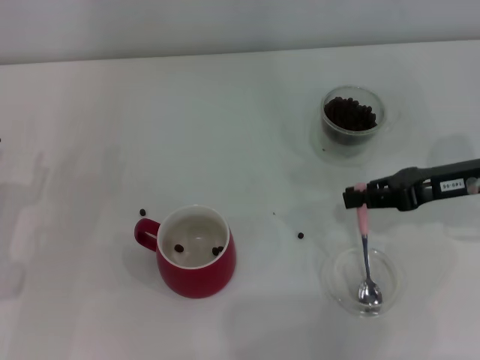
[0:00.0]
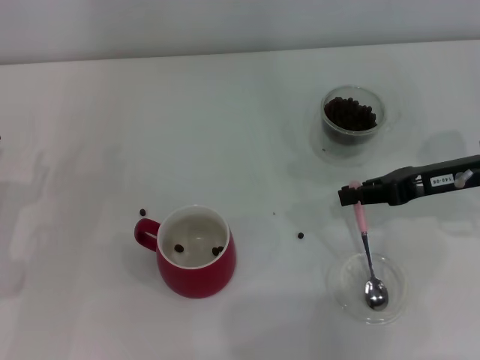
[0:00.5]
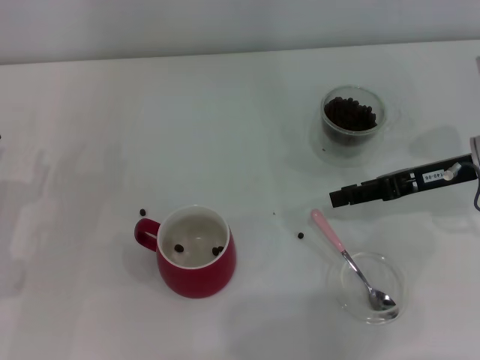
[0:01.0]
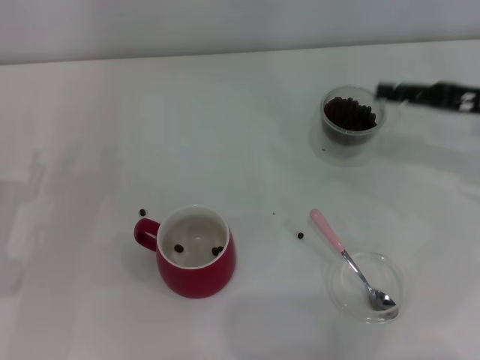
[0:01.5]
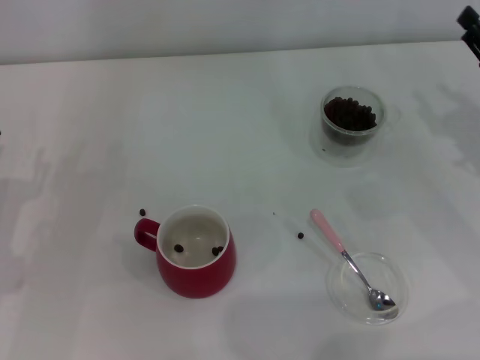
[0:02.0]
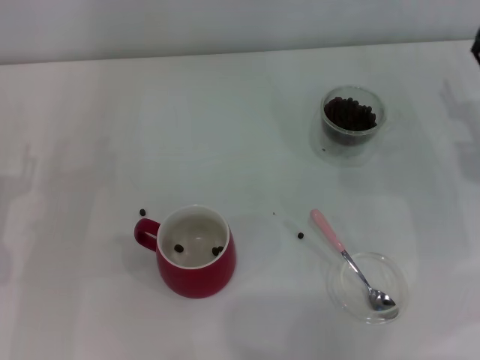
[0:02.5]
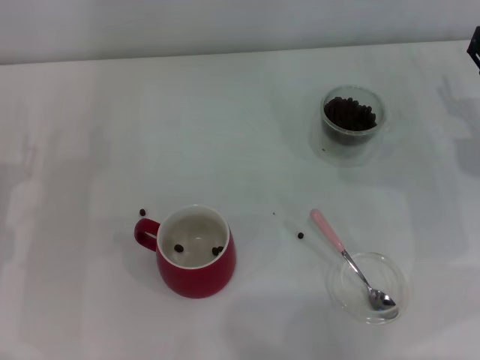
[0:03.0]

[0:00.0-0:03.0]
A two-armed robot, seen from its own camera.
Task of the whole recording: Use a pink spoon to take out the coffee beans from the glass and pour them into the red cup.
0:00.0 to 0:01.5: The right gripper changes place by about 5 cm, and opens its fingers.
0:01.5 to 0:03.0: The right gripper is displaced downward by roughly 10 cm, and opens.

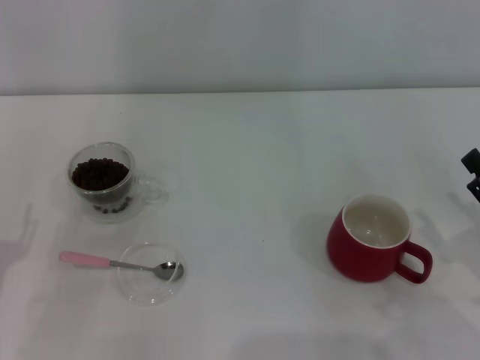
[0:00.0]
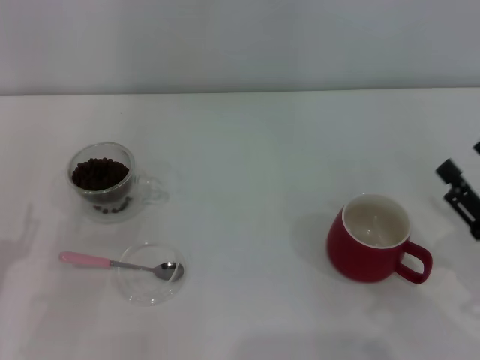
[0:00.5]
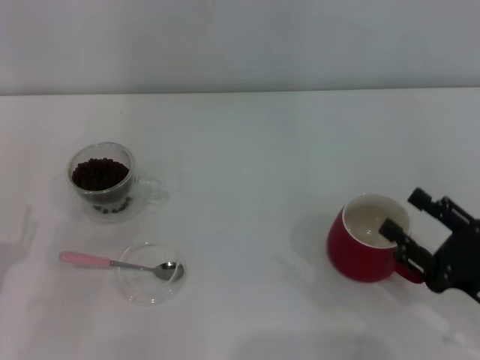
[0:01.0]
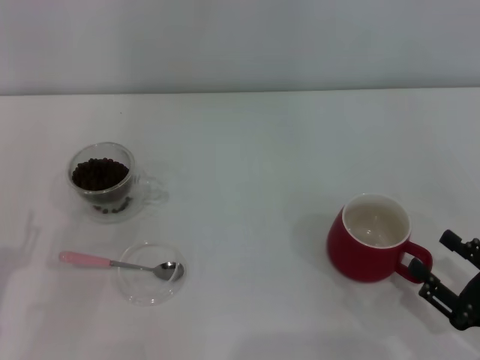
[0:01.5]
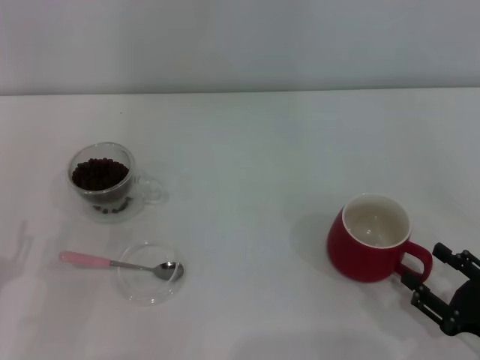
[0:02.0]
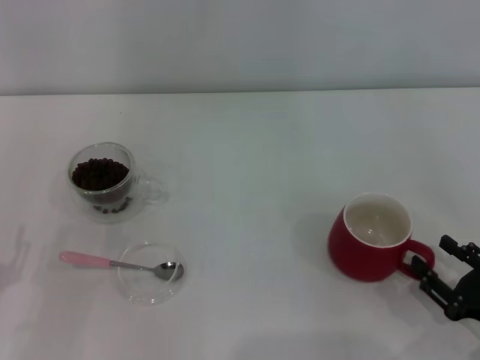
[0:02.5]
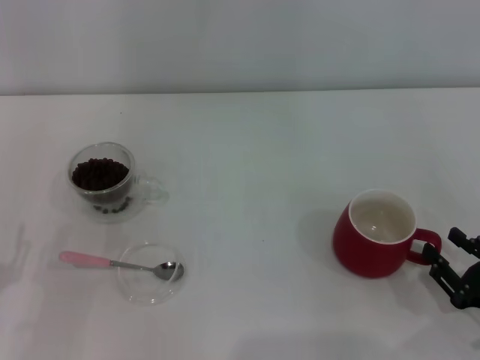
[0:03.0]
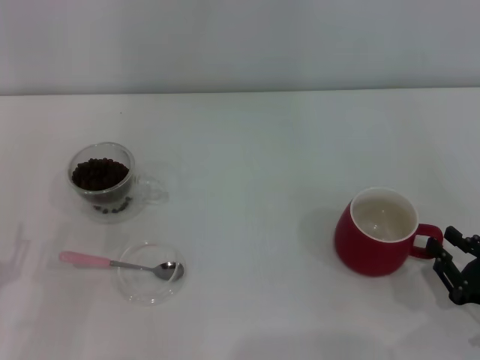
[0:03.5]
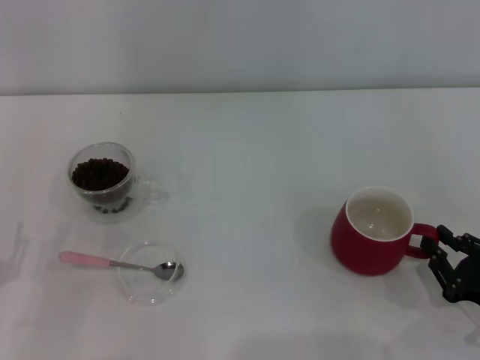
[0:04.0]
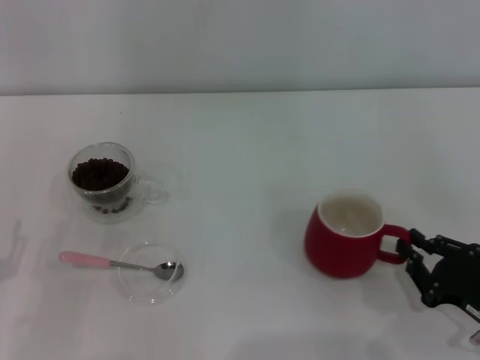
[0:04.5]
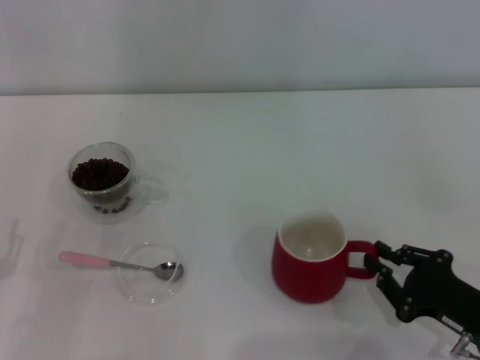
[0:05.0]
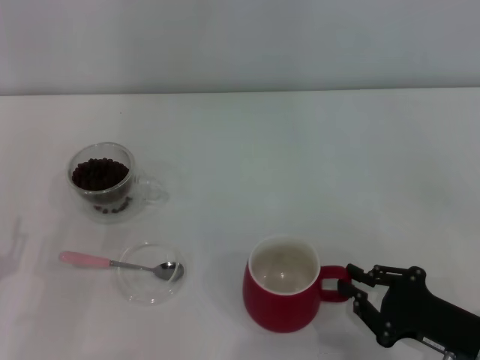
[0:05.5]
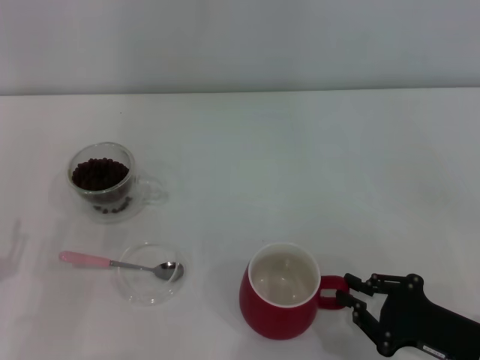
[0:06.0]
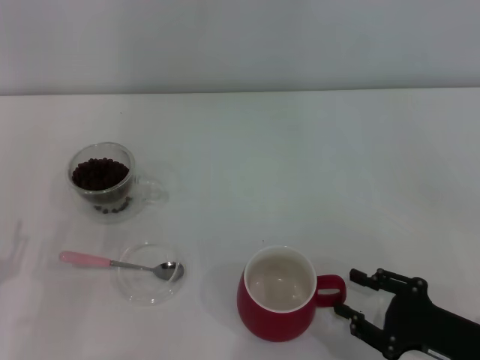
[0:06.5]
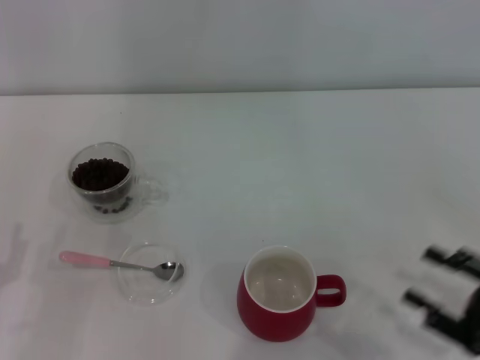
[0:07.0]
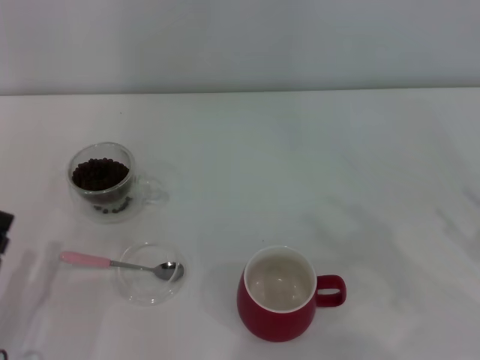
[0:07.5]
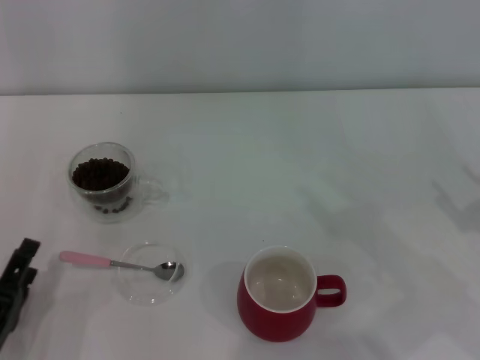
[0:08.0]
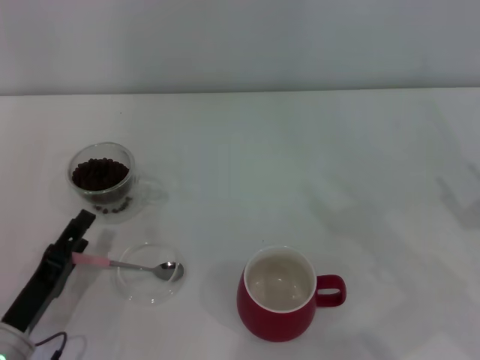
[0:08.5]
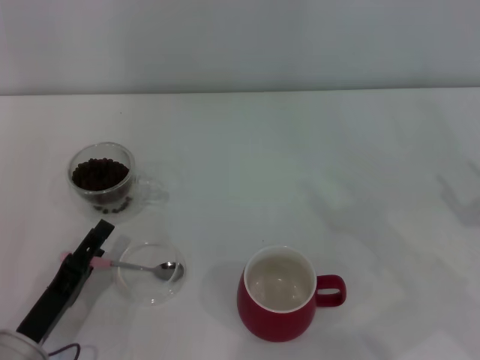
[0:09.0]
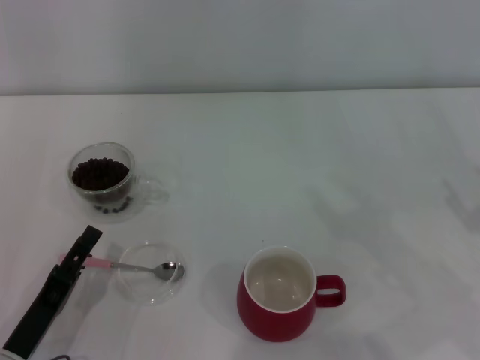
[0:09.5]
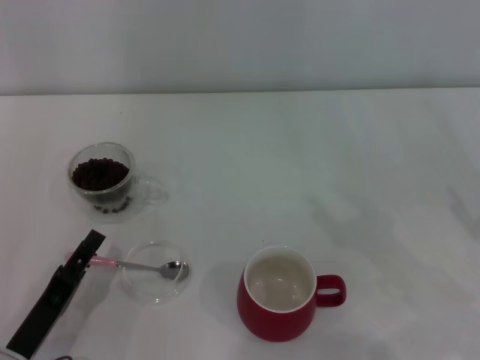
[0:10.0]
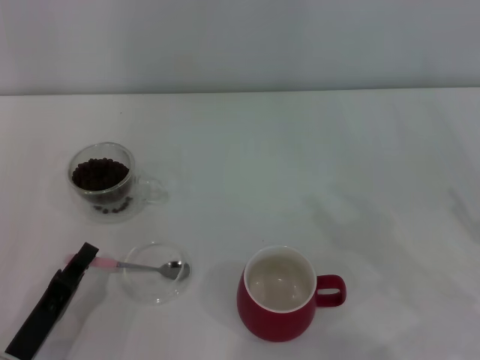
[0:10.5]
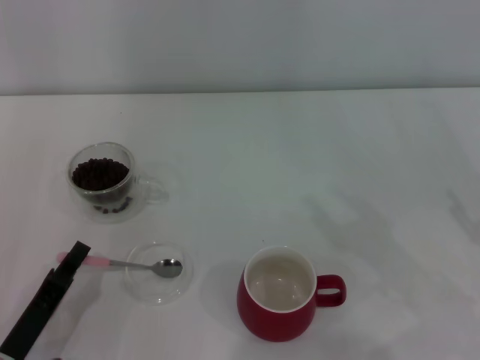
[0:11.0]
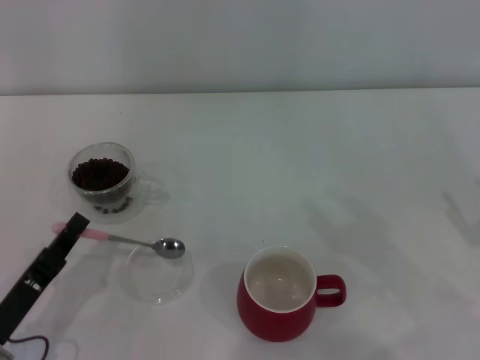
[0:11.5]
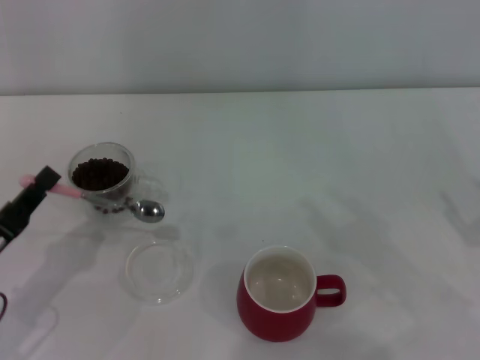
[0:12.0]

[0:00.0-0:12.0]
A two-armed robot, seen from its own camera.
Task of the whole recording: Use a pink spoon to take out the coffee beans from the glass and pour them into the red cup.
Step, 0:00.0 to 0:06.5: Move the cup to the center of view with the left gripper.
Step, 0:07.0 to 0:11.5: Pick up the spoon with the right gripper.
0:00.0 to 0:02.0: The right gripper heads downward, covering about 5 cm.
0:02.0 to 0:04.0: The right gripper closes its fingers.
0:06.0 to 0:08.0: The left gripper ends up some 5 cm from where it was; the right gripper shifts some 10 cm upward and to the right, and opens its fingers.
0:08.0 to 0:10.0: The grippers make only small movements.
0:10.0 to 0:12.0: The left gripper shifts approximately 10 cm upward and to the left, and closes.

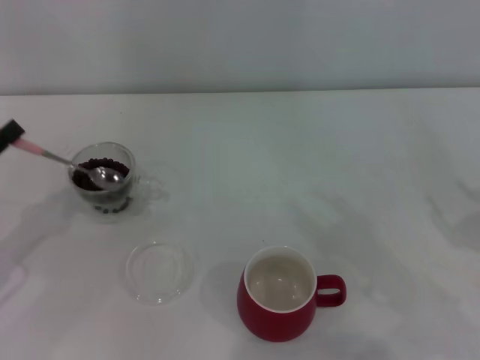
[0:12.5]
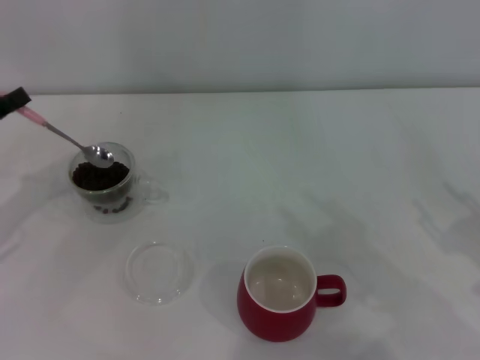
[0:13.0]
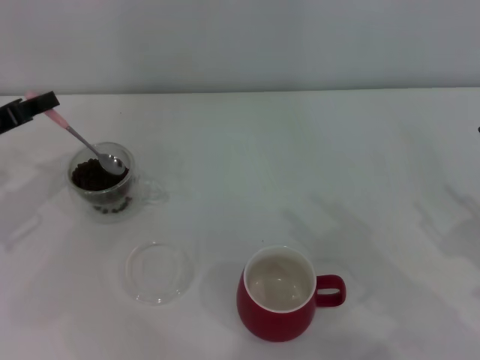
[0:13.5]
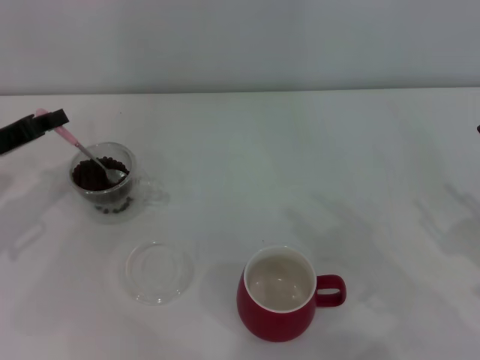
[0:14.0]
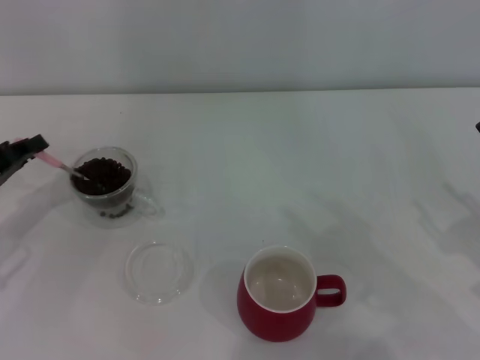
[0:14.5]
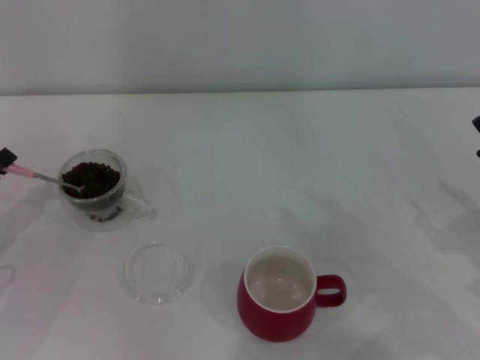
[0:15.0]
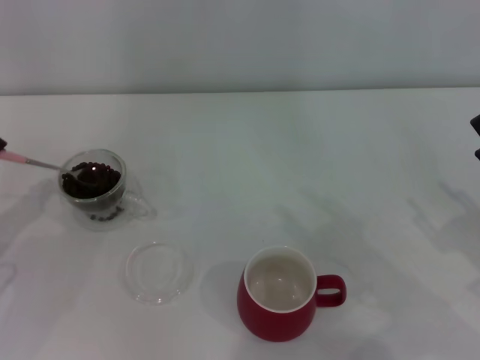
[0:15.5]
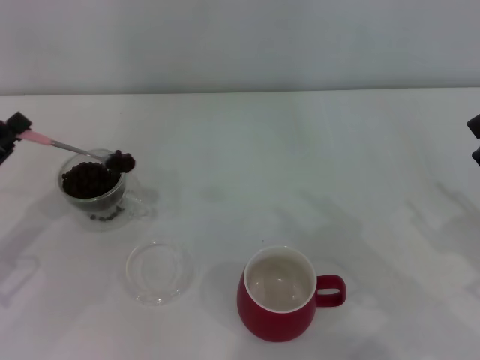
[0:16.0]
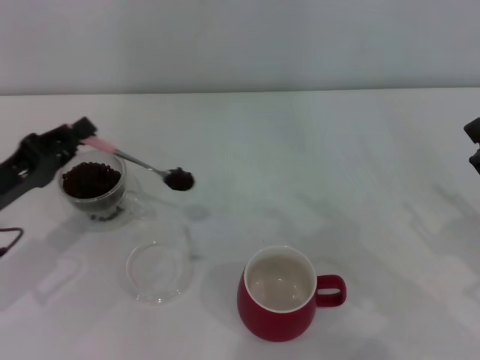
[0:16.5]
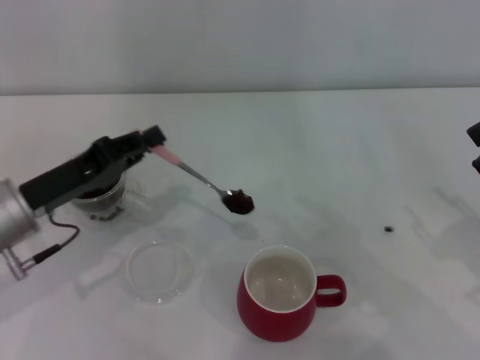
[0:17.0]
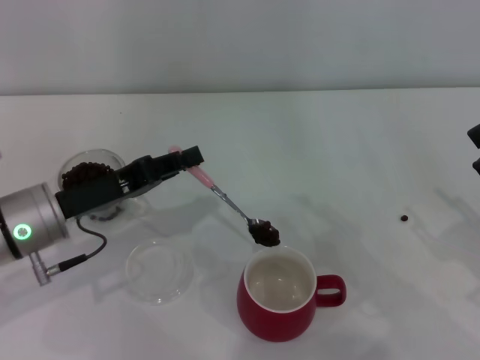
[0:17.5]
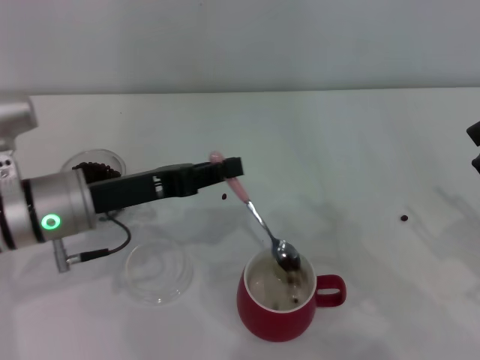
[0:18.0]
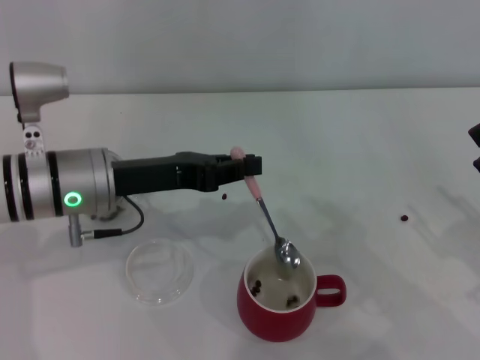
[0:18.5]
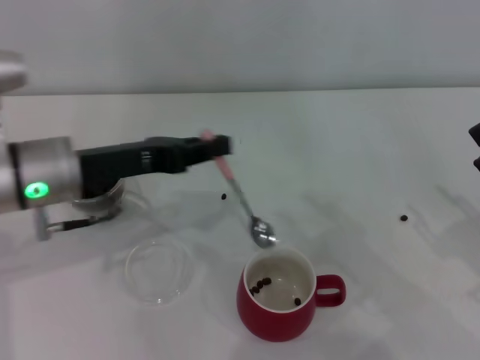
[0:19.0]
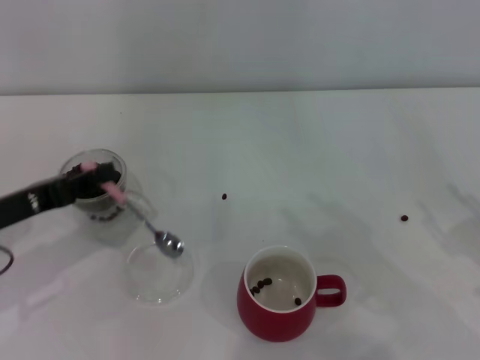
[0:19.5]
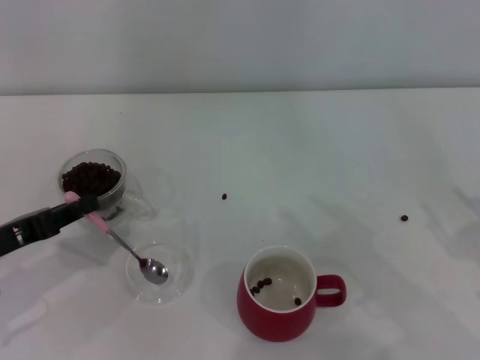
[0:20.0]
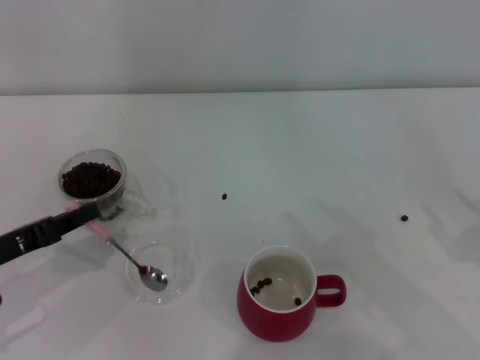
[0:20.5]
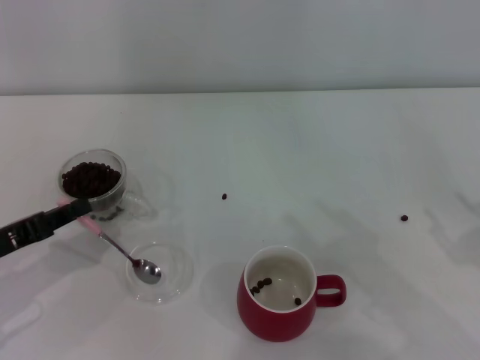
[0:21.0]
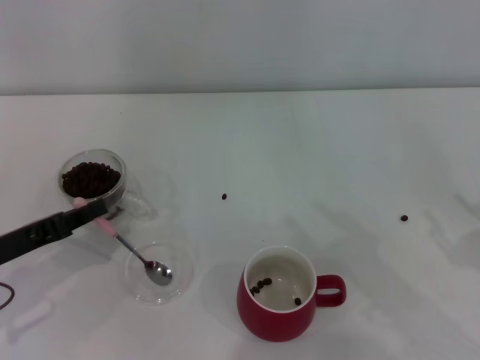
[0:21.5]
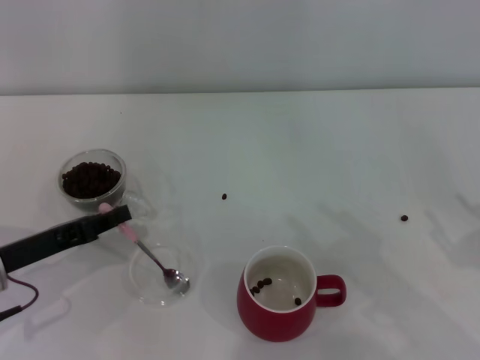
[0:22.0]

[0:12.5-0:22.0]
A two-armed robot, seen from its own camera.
Task of the whole recording: Use a pink spoon to take out the coffee beans from the glass and pour them into the red cup.
0:12.5 to 0:14.5: The left gripper travels forward by about 5 cm.
0:14.5 to 0:16.5: The left gripper shifts by some 5 cm.
0:16.5 to 0:18.0: The left gripper shifts some 10 cm to the right.
0:18.0 to 0:20.0: The left gripper is displaced to the left and backward by some 15 cm.
0:20.0 to 0:22.0: The grippers move only a little.

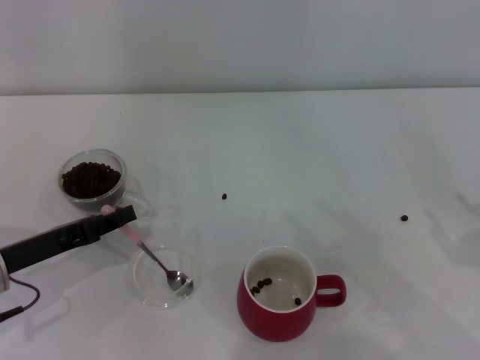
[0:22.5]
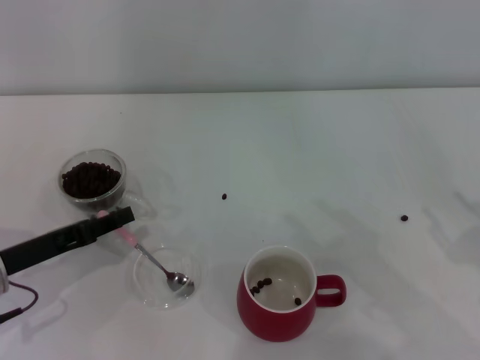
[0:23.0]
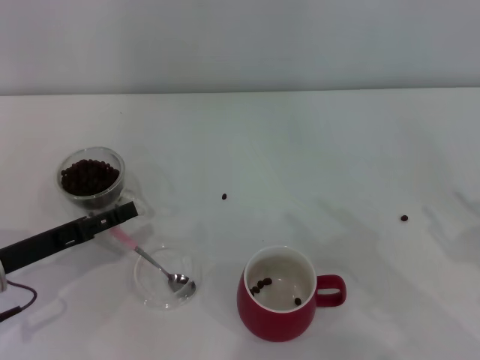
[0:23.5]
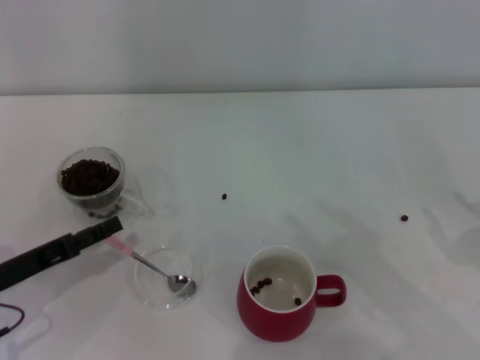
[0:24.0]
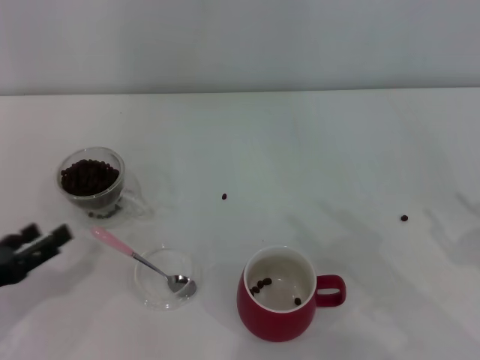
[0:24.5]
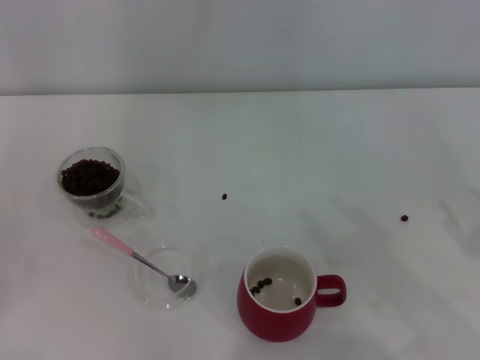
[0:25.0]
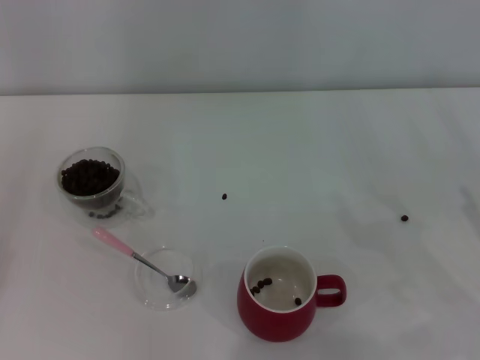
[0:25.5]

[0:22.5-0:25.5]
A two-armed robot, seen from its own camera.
Task of the whole recording: Use a pink spoon to take out the coffee beans from the glass and pour them into the red cup.
0:22.5 to 0:24.0: The left gripper opens its fingers.
0:24.0 to 0:25.5: The left gripper heads to the left and backward, covering about 15 cm.
